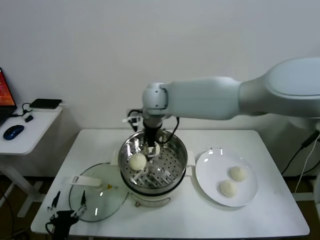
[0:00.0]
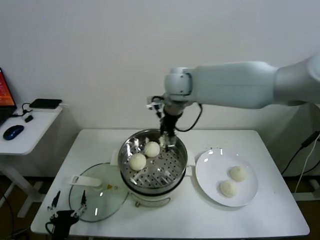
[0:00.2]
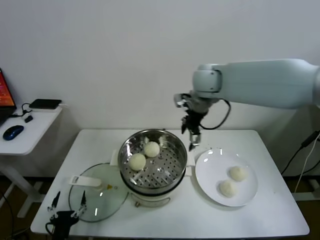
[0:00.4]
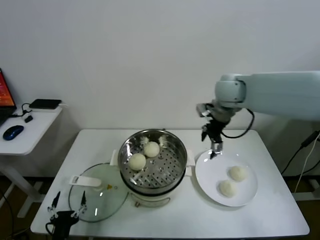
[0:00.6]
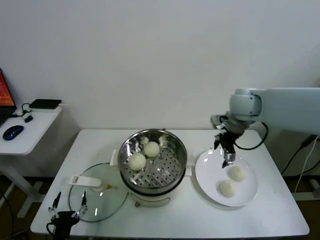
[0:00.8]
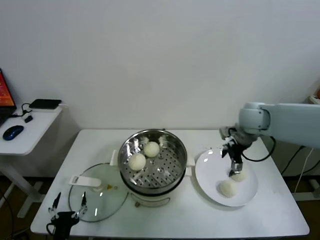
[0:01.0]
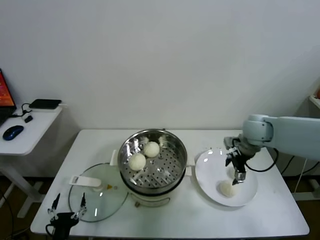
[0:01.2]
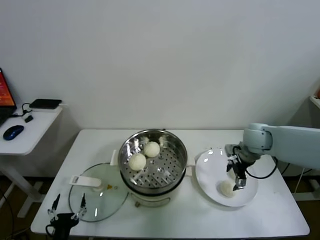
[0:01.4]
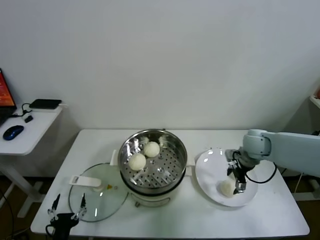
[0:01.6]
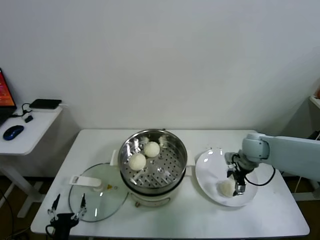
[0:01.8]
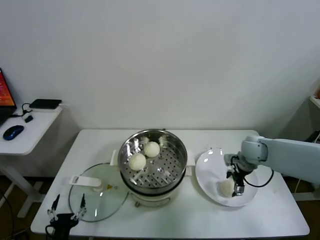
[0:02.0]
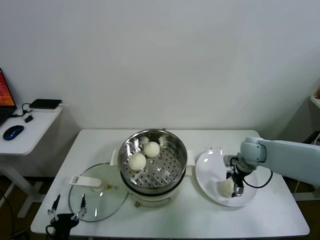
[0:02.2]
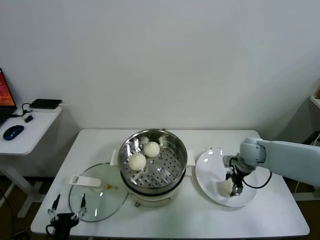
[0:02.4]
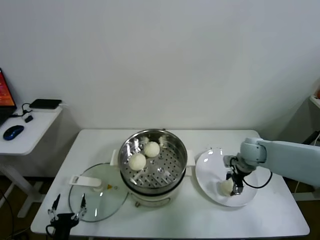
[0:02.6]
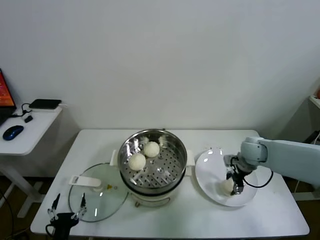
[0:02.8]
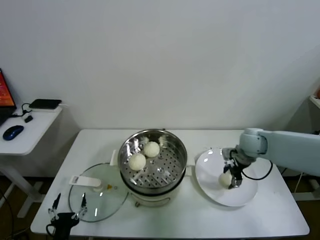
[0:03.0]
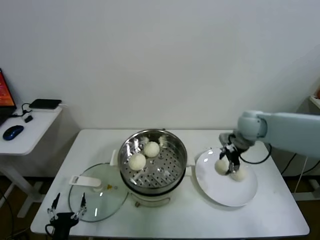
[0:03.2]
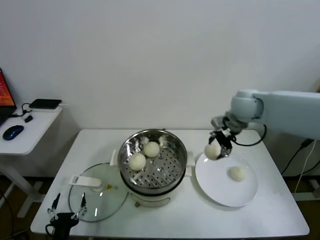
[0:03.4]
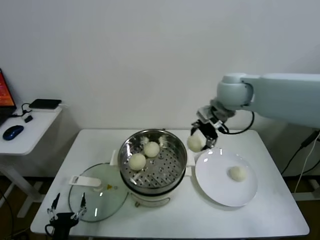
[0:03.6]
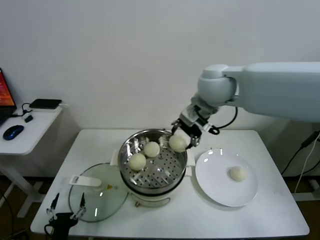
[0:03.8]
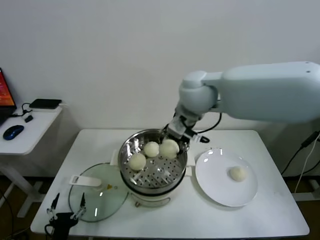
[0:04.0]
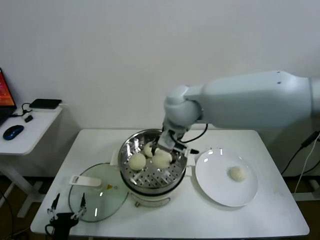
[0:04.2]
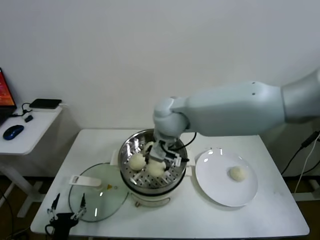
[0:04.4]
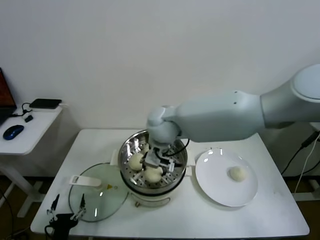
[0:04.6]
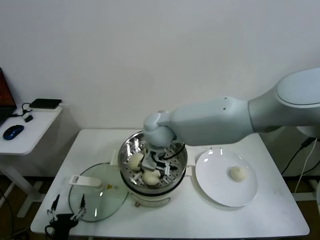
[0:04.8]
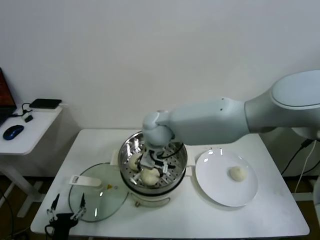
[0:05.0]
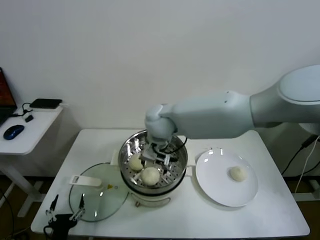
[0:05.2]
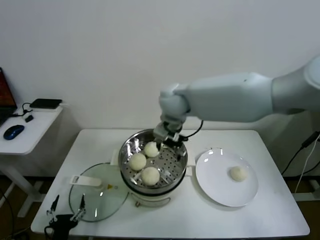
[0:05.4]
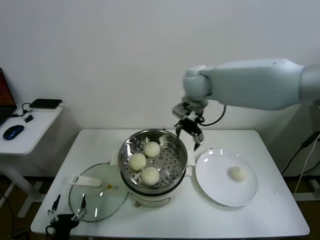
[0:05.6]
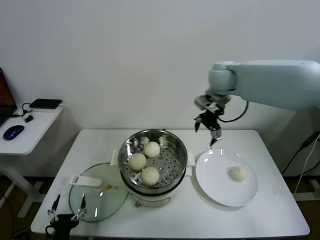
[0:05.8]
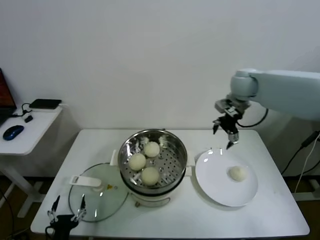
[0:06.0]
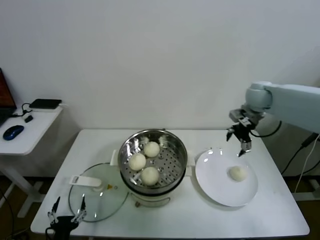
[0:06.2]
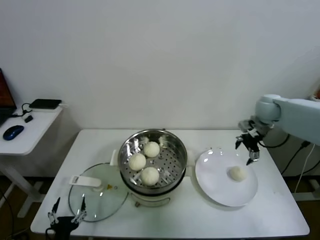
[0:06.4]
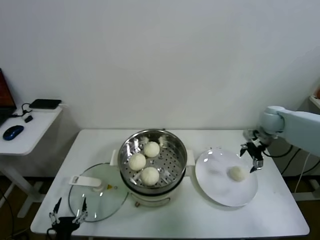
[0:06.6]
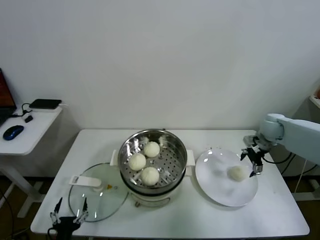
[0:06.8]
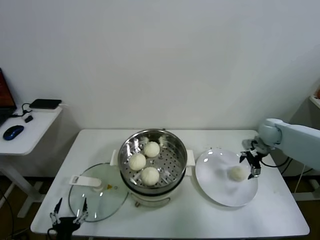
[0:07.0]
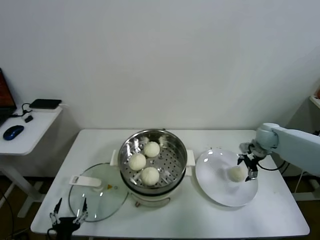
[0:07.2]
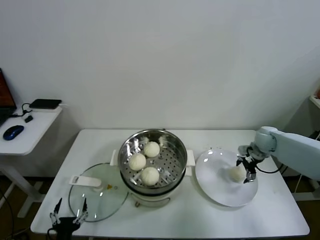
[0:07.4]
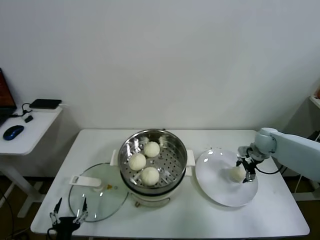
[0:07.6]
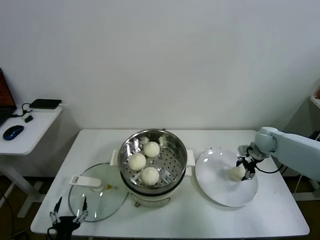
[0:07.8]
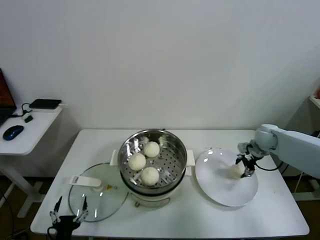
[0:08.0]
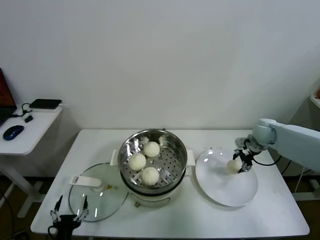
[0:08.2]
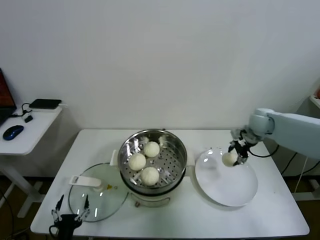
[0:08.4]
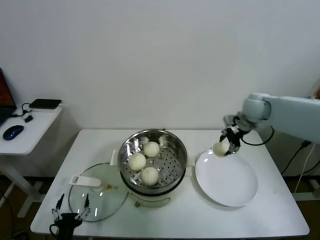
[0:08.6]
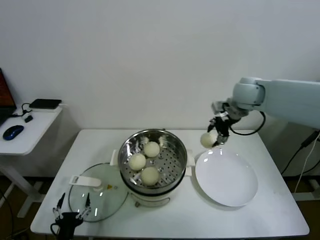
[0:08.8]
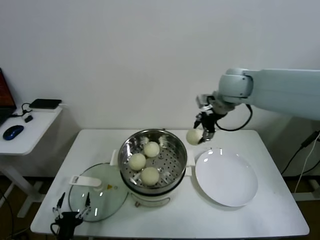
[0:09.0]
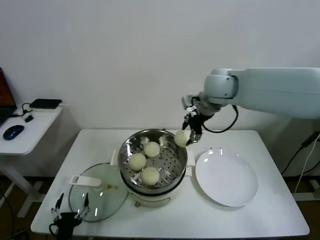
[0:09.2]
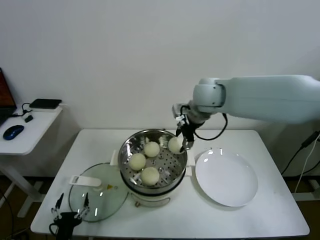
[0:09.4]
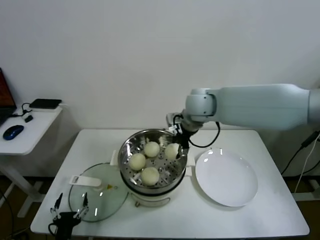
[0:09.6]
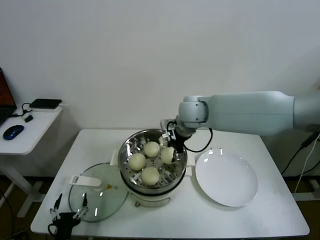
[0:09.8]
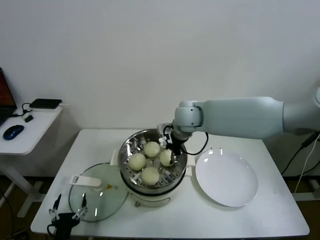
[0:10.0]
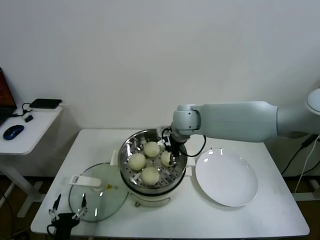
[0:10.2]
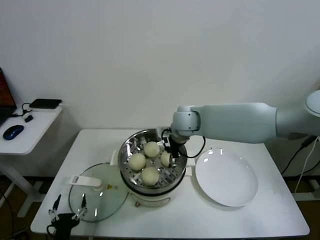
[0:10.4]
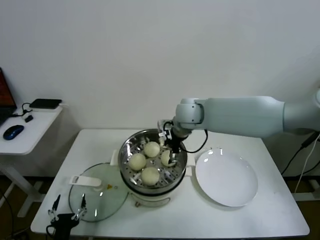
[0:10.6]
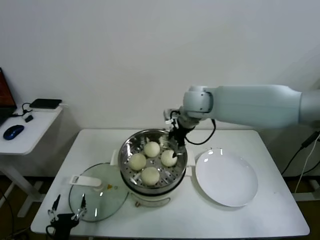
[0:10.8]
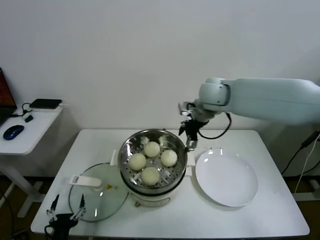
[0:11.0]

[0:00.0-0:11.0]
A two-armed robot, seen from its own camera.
Task of the whole recording: take steamed baozi put them in steamer.
Step, 0:00.0 to 0:02.6: Grasp the baozi in the plate with right gripper.
Step, 0:02.8 to 0:05.0: Place the baozi on the steamer with right gripper.
Step, 0:05.2 to 0:07.8: Grasp the baozi in the plate with right gripper.
Step, 0:08.0 to 0:10.4: Place the baozi on the steamer with right gripper.
0:00.0 to 0:01.6: The right gripper heads to the right and downward, covering about 35 cm.
0:01.6 to 0:03.2: The right gripper heads upward, covering roughly 5 cm, and closes.
0:03.2 to 0:04.8: The right gripper heads to the left, covering about 30 cm.
0:04.8 to 0:06.2: The right gripper shifts roughly 35 cm to the right, and opens up.
0:06.2 to 0:07.8: The right gripper is displaced downward and to the right by roughly 20 cm, and closes its fingers.
0:07.8 to 0:09.4: The right gripper goes about 35 cm to the left and upward.
0:09.4 to 0:11.0: The right gripper reaches about 10 cm downward, then returns, and opens.

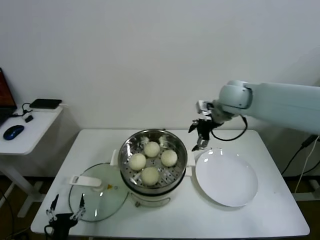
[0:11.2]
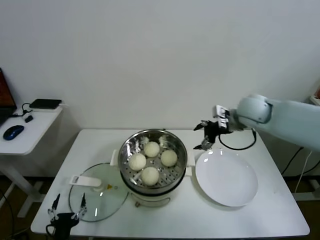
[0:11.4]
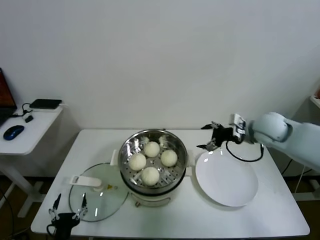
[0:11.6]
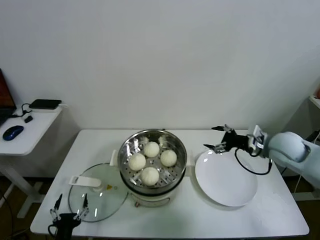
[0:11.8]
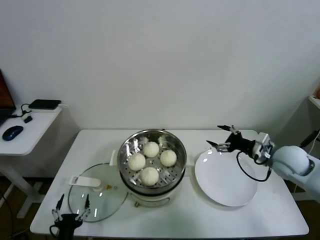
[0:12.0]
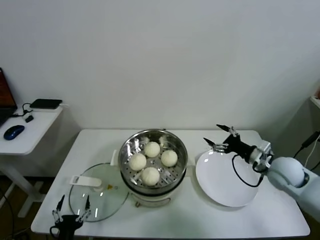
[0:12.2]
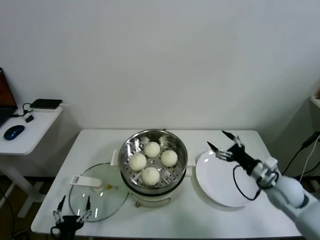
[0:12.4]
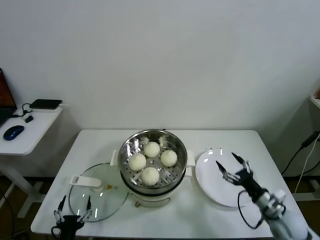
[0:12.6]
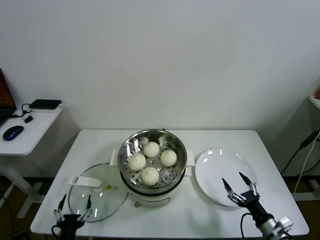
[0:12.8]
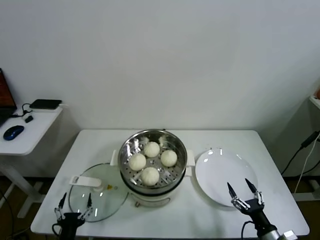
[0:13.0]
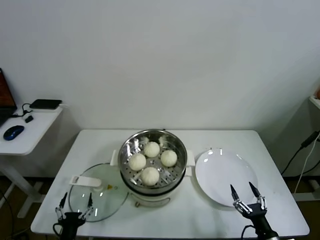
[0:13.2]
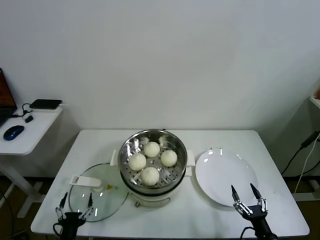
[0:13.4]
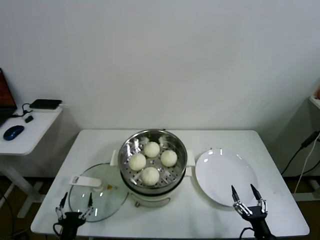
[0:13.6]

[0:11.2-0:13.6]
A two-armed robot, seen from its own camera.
Task of the whole recording: take steamed baozi put them in steamer.
0:11.2 to 0:12.4: The right gripper goes some 35 cm downward, backward and to the right.
0:12.4 to 0:13.6: The right gripper is displaced backward and downward by roughly 25 cm.
